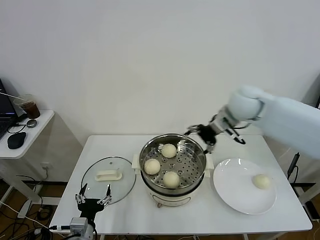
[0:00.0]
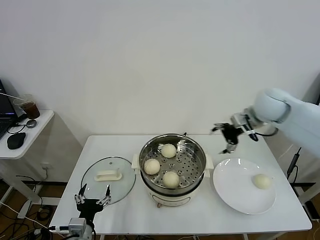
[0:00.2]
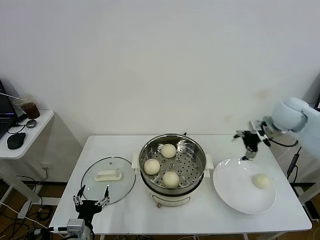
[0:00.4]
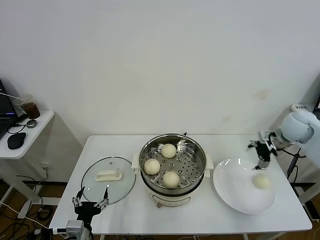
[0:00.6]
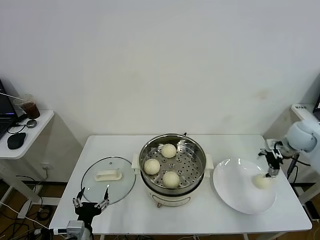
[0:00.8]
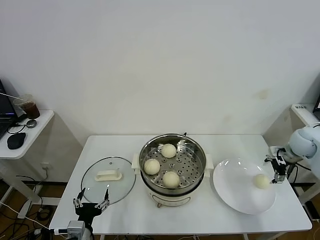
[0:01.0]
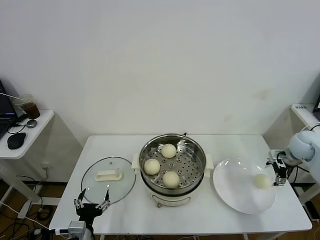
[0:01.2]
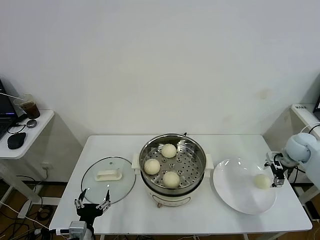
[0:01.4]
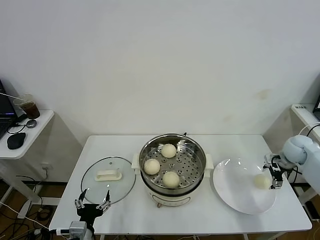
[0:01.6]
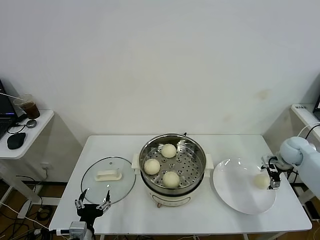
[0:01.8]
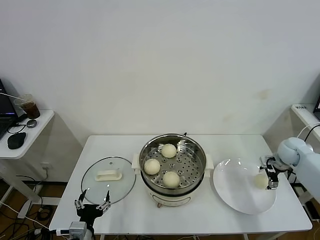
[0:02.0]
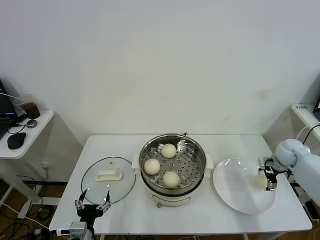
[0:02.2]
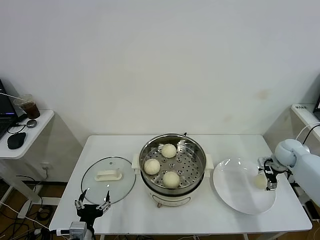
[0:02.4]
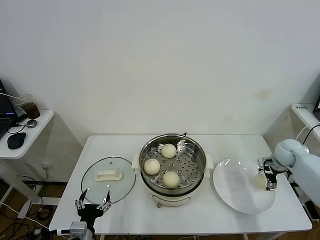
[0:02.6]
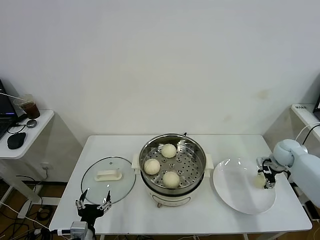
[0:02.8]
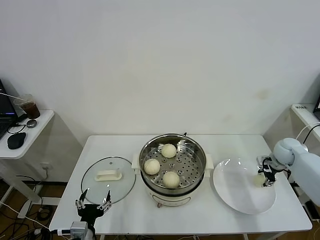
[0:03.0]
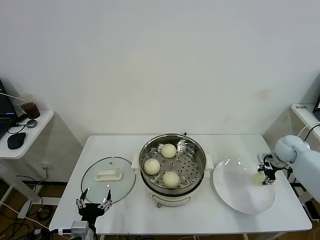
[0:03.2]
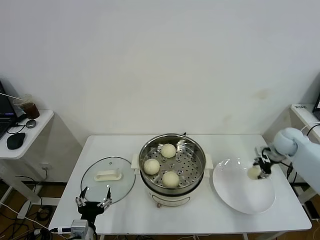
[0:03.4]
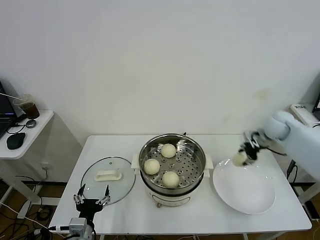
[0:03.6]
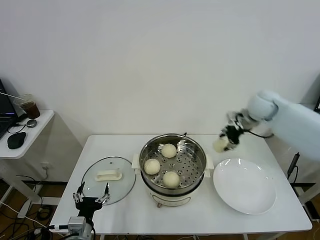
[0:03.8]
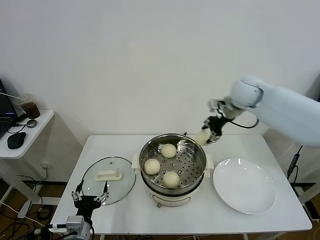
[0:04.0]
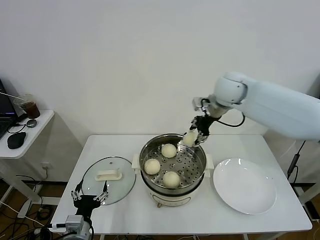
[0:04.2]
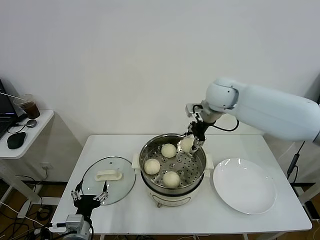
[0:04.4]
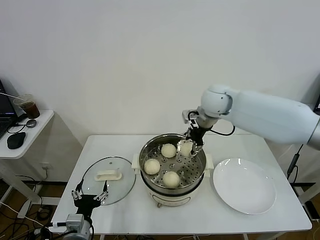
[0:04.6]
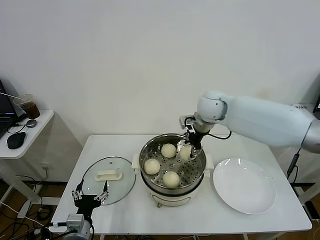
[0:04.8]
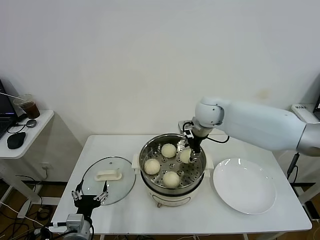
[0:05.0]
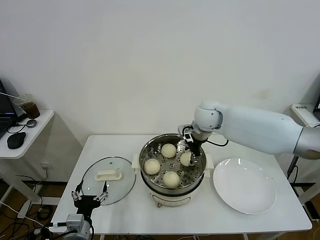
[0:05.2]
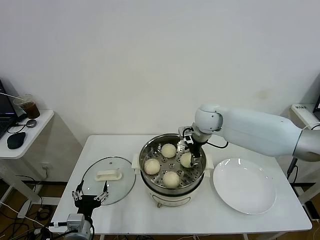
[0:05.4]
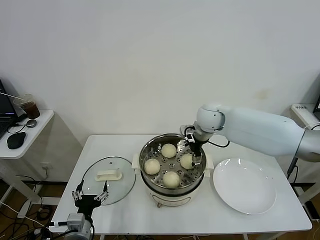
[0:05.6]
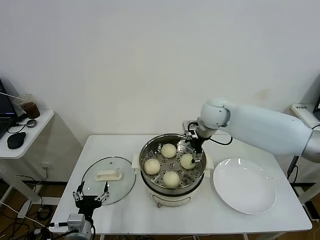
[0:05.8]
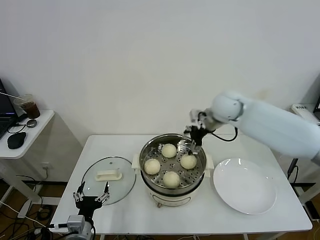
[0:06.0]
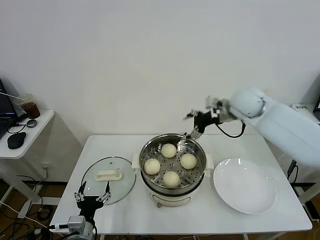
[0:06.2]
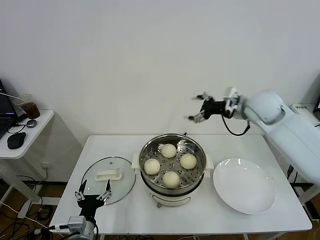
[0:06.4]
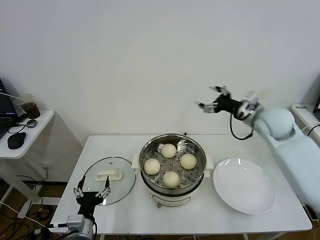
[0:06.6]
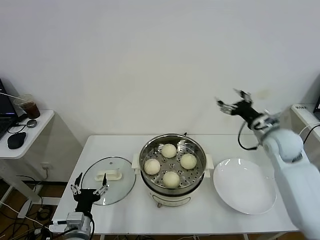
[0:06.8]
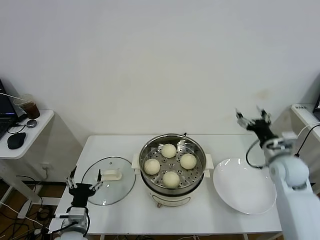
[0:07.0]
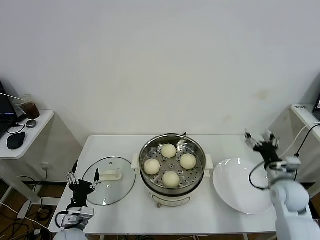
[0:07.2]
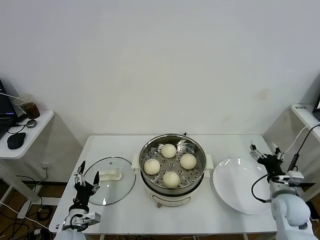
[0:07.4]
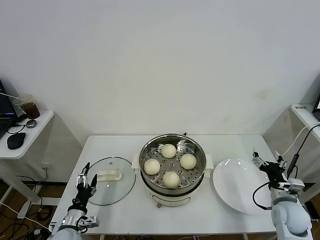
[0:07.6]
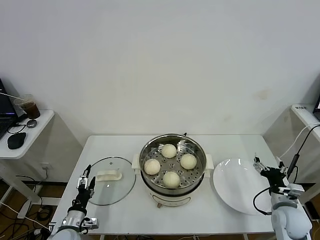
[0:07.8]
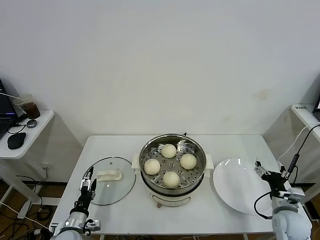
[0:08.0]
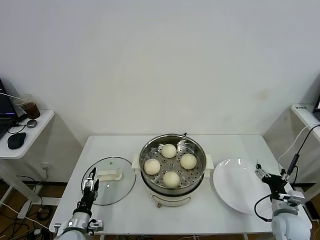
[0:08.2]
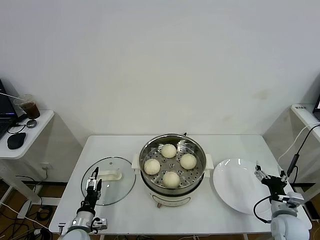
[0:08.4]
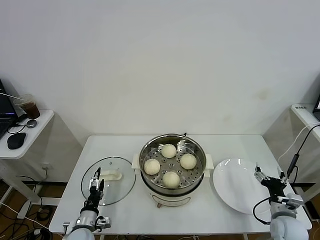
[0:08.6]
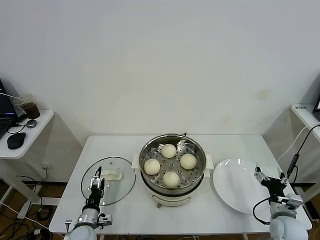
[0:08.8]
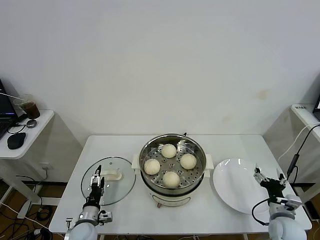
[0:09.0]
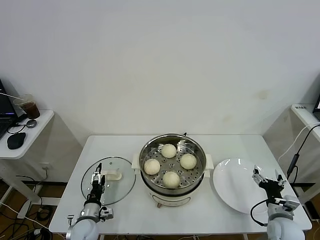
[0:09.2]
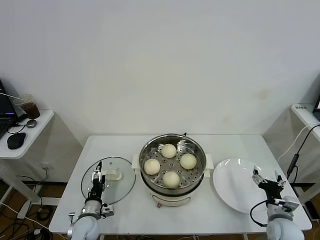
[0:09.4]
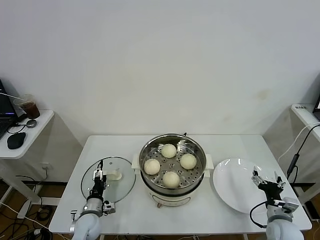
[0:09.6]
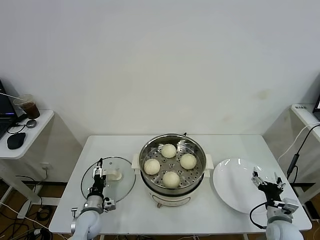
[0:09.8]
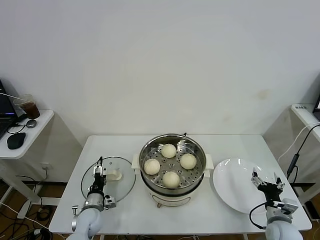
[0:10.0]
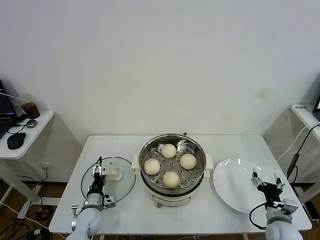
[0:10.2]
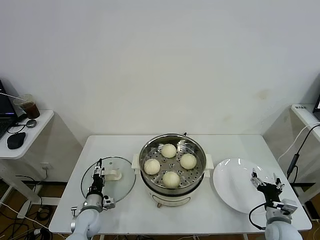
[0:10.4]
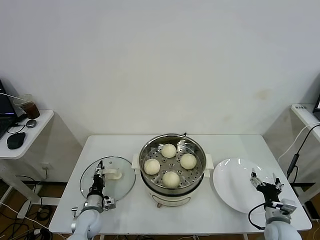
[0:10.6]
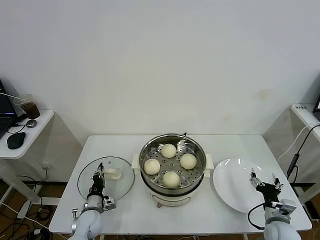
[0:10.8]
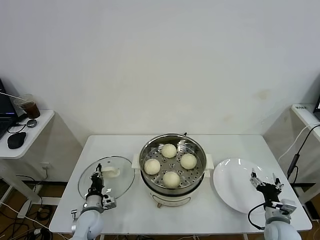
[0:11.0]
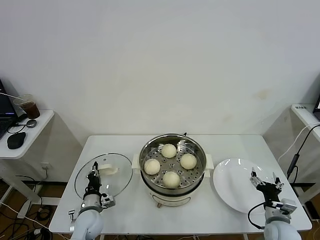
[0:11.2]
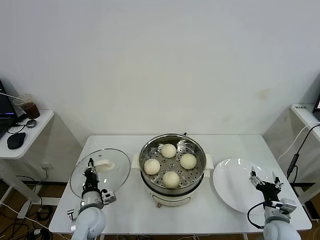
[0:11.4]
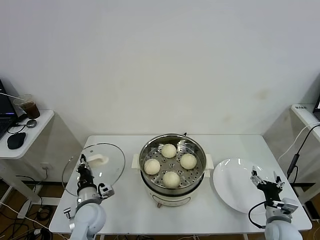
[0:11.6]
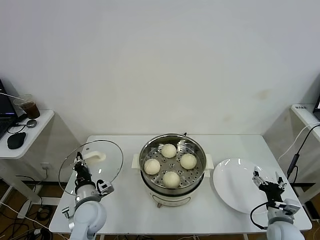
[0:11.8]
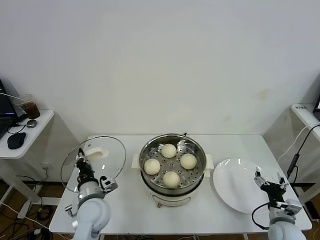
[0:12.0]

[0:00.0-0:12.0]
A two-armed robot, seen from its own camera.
Task of the whole recording: take steamed baozi put them in steamer.
Step, 0:00.0 to 0:03.0: Grasp the baozi in the plate with right gripper.
Step, 0:03.2 to 0:05.8: Place the baozi on the steamer with right gripper.
Step, 0:06.0 to 0:11.0: Grasp the pot lid with left gripper.
0:00.0 to 0:01.6: The right gripper shifts about 30 cm to the right and downward.
0:01.6 to 0:03.0: The right gripper closes.
0:03.0 to 0:04.4: The right gripper moves to the left and upward, about 35 cm.
0:04.4 to 0:06.0: The right gripper opens up.
0:06.0 to 0:07.6: The left gripper heads downward, to the left and forward, covering about 10 cm. The right gripper goes some 40 cm backward, downward and to the right.
0:07.6 to 0:09.0: The left gripper ends up roughly 5 cm from where it was; the right gripper moves some 5 cm.
0:09.0 to 0:10.4: The left gripper goes roughly 5 cm forward.
0:10.4 to 0:12.0: The left gripper goes some 15 cm upward and to the right, and closes up.

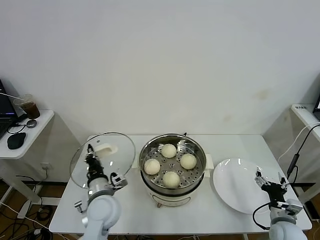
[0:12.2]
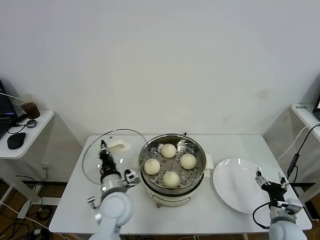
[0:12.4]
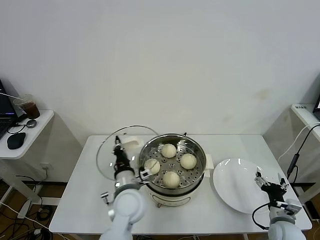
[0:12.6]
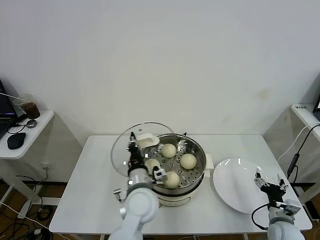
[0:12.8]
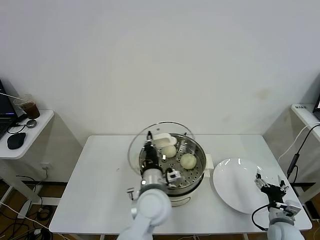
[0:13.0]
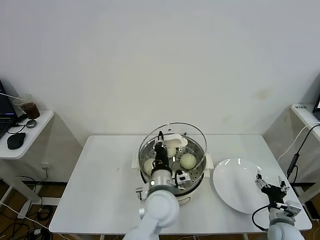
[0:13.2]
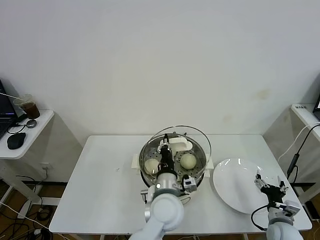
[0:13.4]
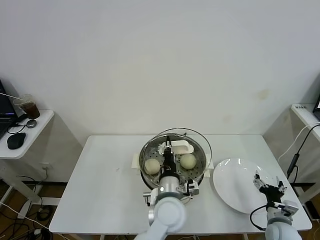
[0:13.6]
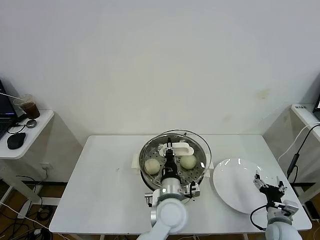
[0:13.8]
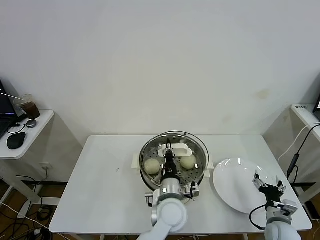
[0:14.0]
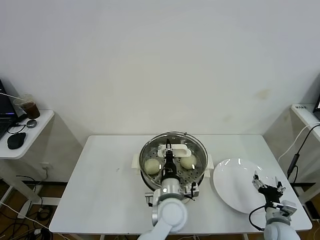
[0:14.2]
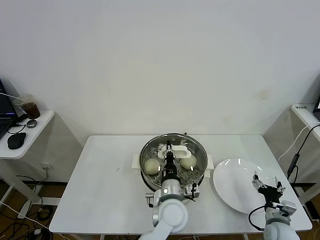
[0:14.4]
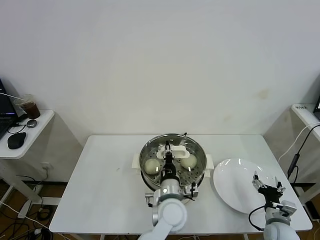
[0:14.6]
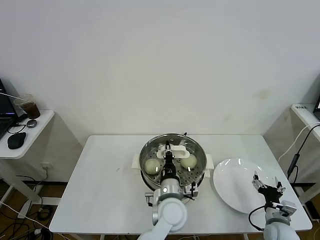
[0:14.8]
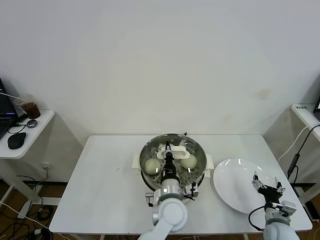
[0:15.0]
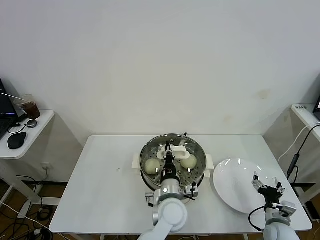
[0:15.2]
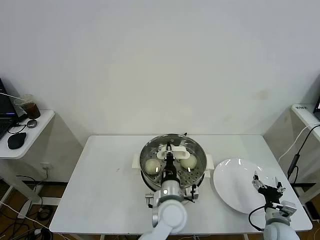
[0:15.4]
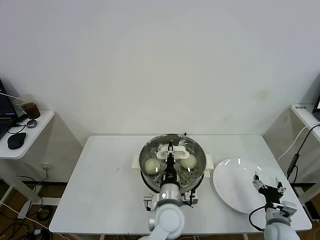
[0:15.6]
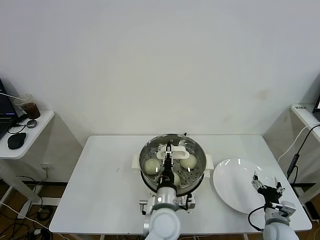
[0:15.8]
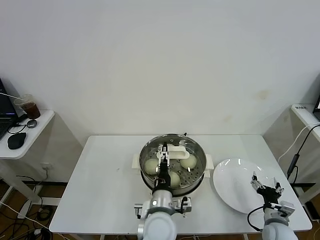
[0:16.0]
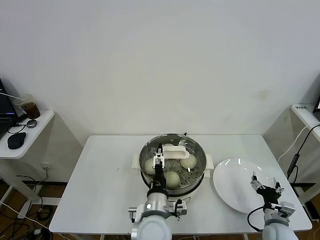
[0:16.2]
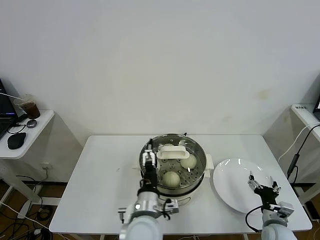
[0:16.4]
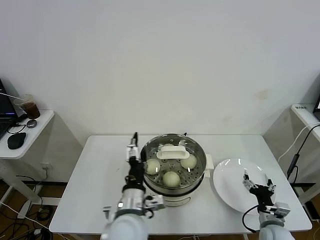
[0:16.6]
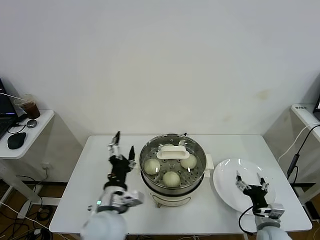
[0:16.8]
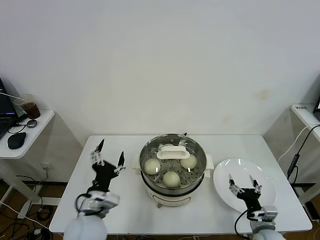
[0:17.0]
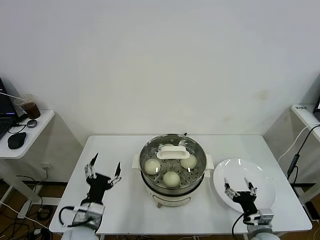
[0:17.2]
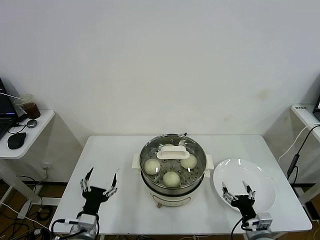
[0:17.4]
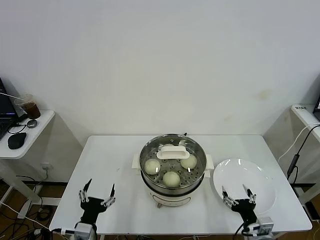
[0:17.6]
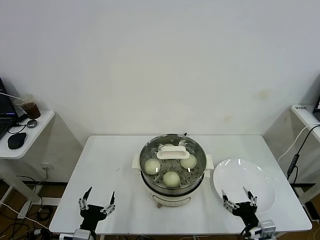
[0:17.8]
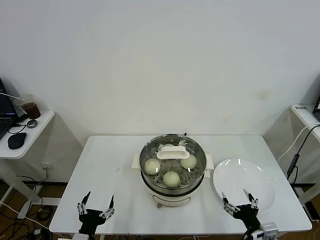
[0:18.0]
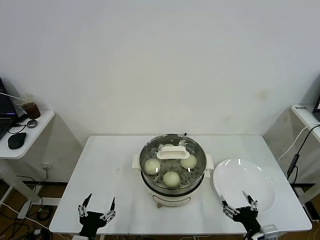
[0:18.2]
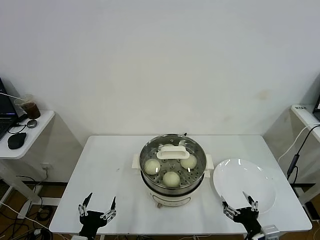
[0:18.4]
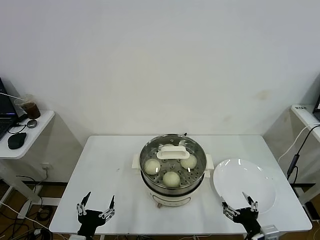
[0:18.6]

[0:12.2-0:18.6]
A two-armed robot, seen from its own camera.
Task of the whole recording: take steamed baozi put them in steamer.
Step, 0:12.2 to 0:15.8: Place the pot lid on the steamer with left gripper.
0:12.2 to 0:13.8: The left gripper goes about 20 cm to the right.
0:13.8 to 0:15.4: The grippers make only small movements.
0:15.4 to 0:17.0: The left gripper travels to the left by some 20 cm, and opens its fingers, while the right gripper ends up some 5 cm from where it was.
0:17.0 to 0:18.6: The right gripper moves backward and upward, about 10 cm. Meanwhile the left gripper goes approximately 15 cm backward, downward and to the left.

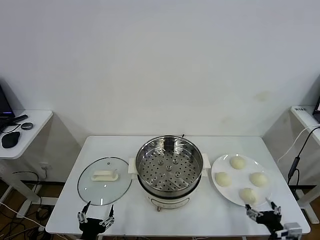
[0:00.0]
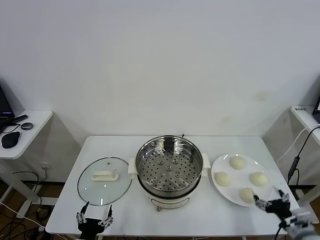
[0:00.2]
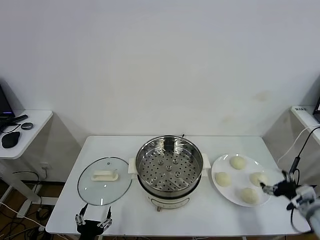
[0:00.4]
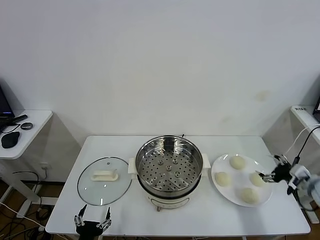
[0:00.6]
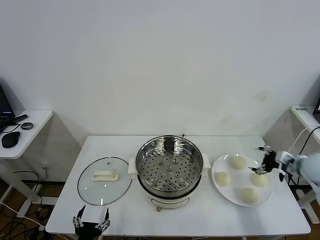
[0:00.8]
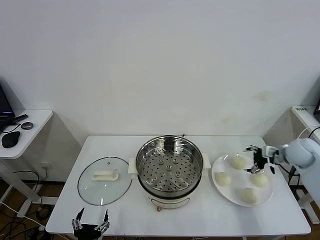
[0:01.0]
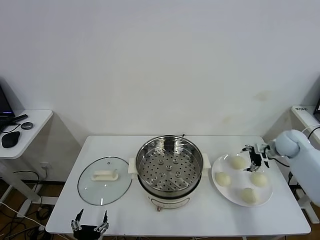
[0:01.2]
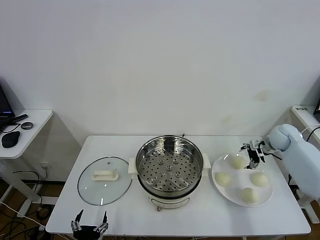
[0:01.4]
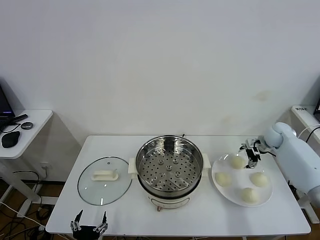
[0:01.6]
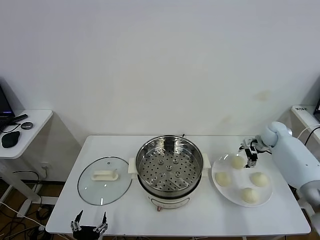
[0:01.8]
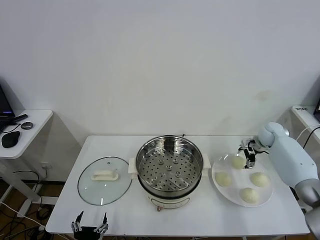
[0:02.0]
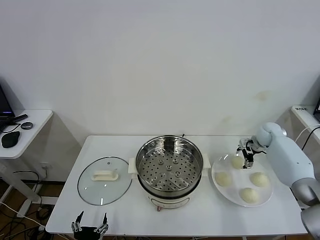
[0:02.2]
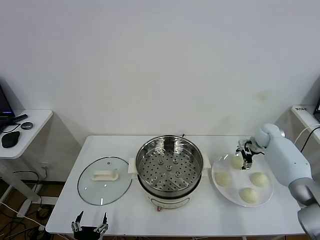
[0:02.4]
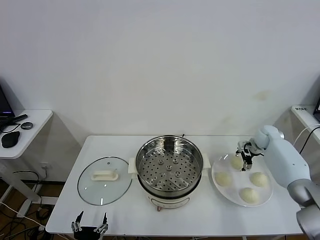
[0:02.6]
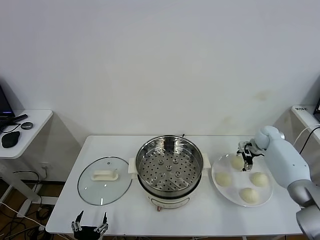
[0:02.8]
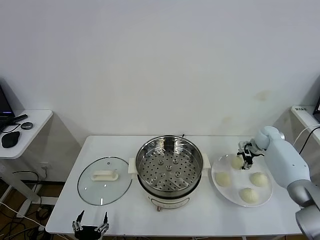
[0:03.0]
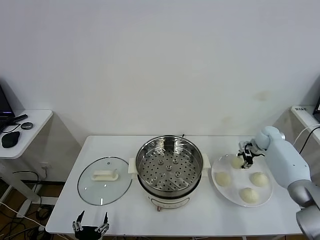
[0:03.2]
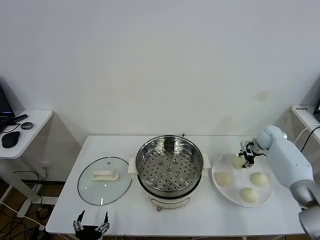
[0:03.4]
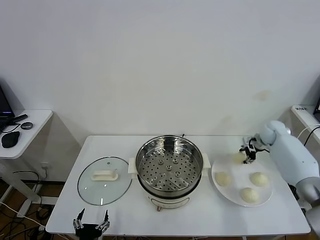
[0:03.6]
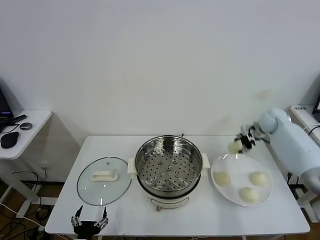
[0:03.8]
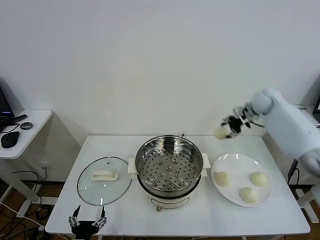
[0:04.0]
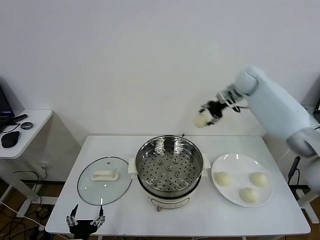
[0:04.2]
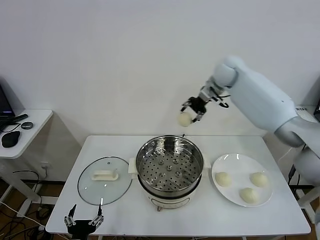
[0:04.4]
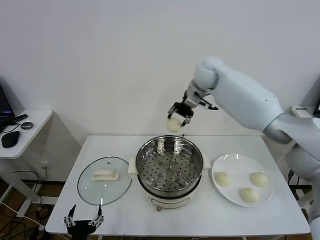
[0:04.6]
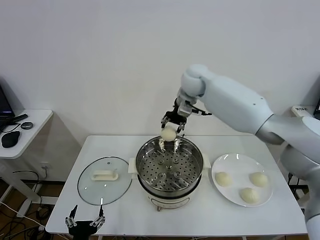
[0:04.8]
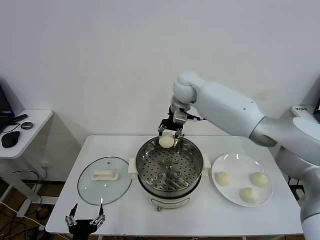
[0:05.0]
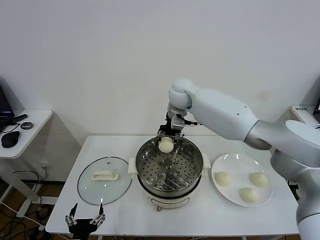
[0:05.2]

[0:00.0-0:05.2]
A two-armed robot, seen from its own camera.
Task of the whole recording: take steamed baozi put them in steamer.
Step, 0:00.0 to 0:03.0: Grasp the baozi in the plate with right gripper.
0:01.8 to 0:03.4: The right gripper closes up.
0:03.4 to 0:05.2: The right gripper shifts some 40 cm to the left and upward.
